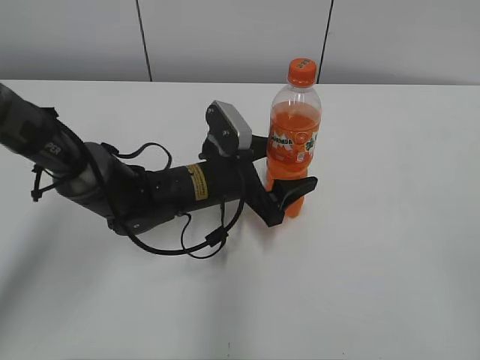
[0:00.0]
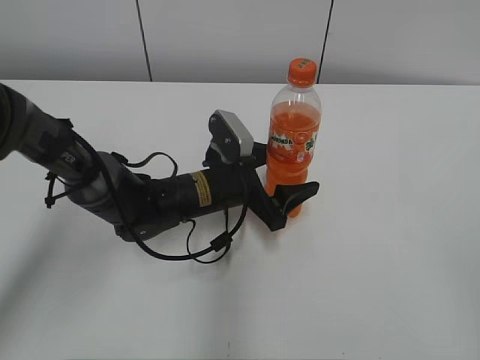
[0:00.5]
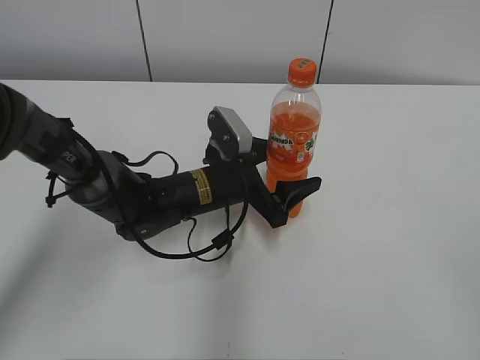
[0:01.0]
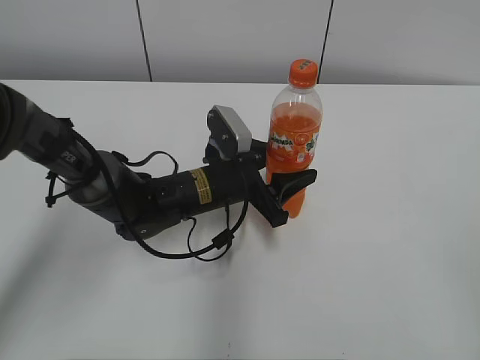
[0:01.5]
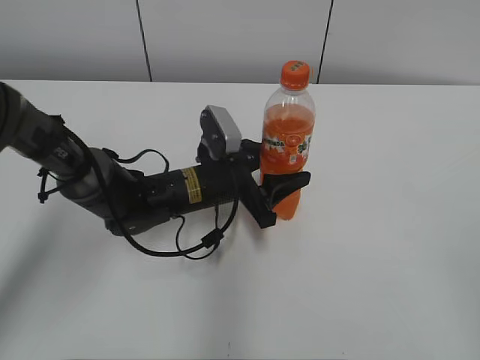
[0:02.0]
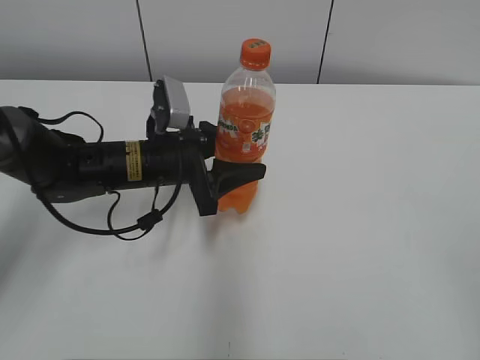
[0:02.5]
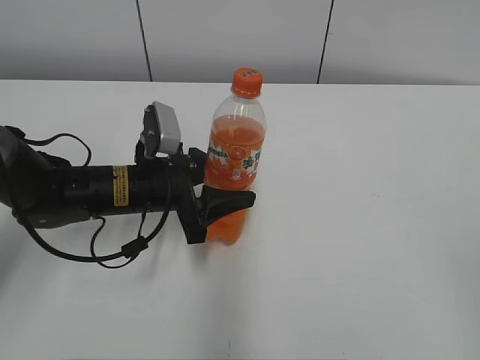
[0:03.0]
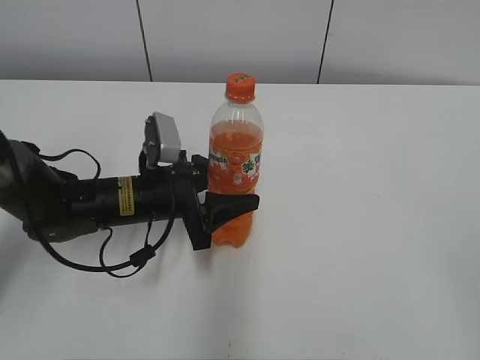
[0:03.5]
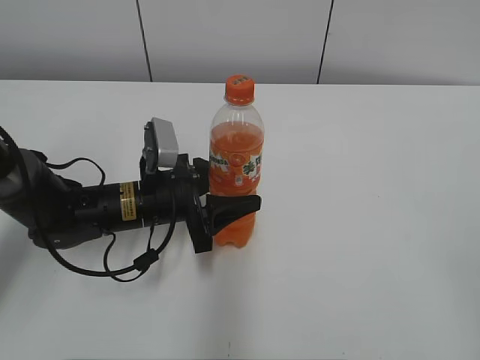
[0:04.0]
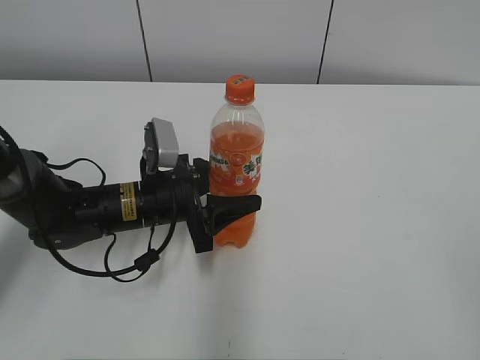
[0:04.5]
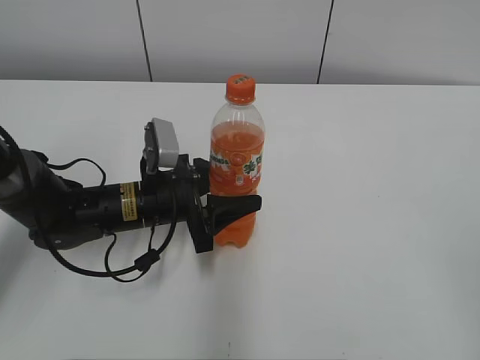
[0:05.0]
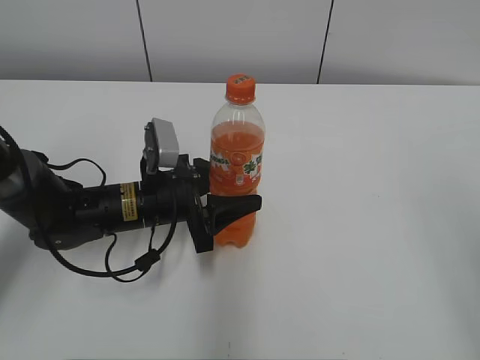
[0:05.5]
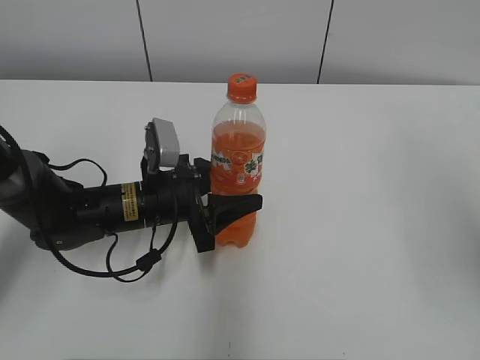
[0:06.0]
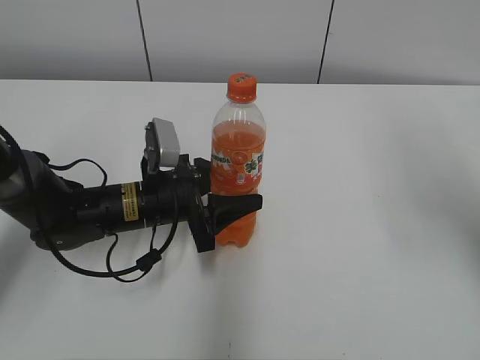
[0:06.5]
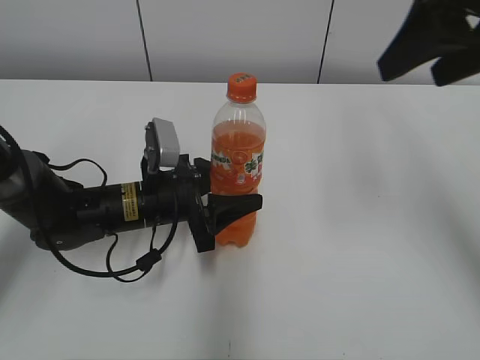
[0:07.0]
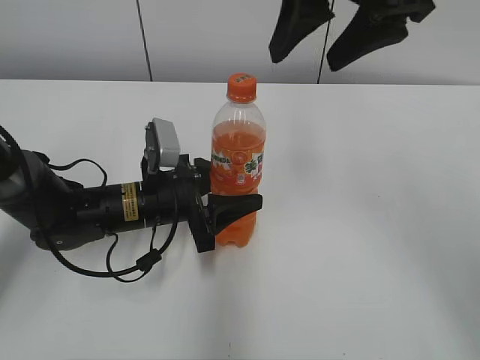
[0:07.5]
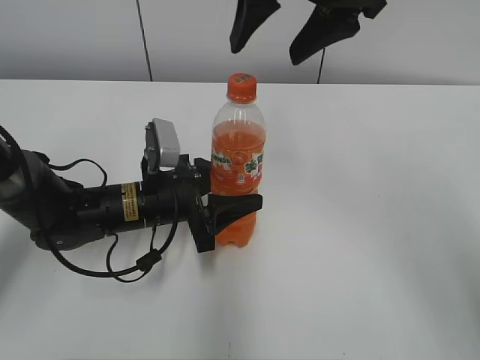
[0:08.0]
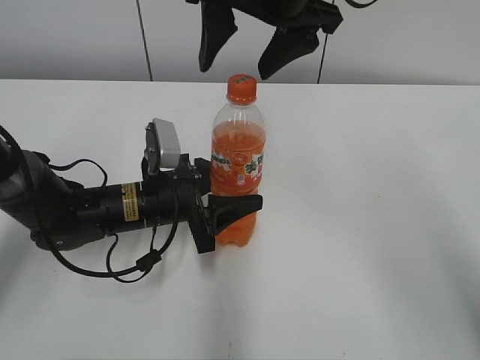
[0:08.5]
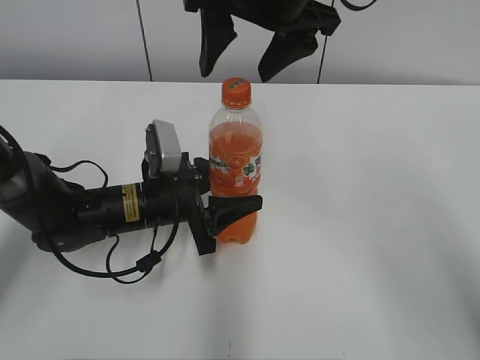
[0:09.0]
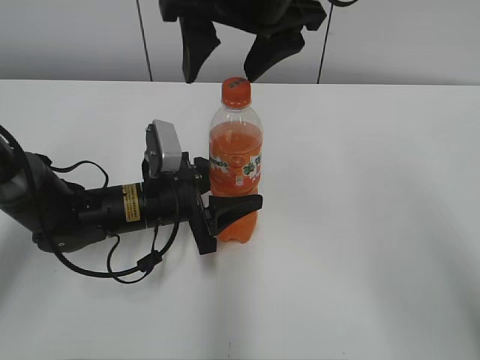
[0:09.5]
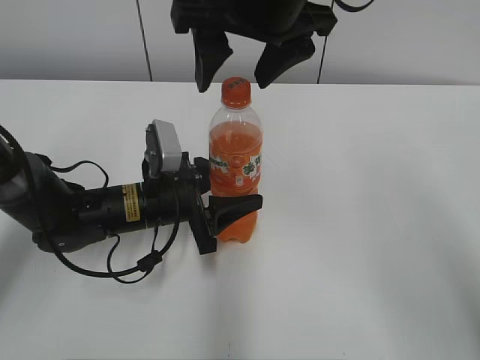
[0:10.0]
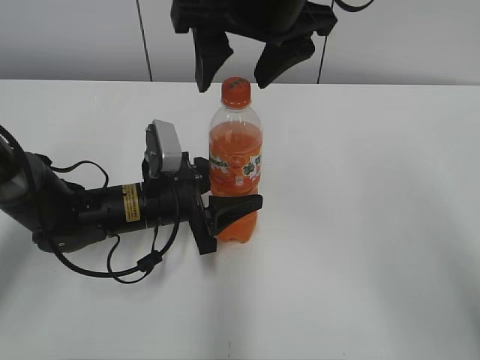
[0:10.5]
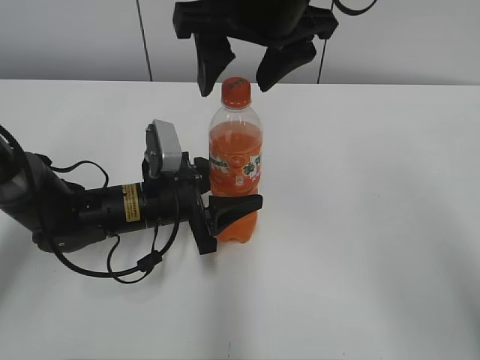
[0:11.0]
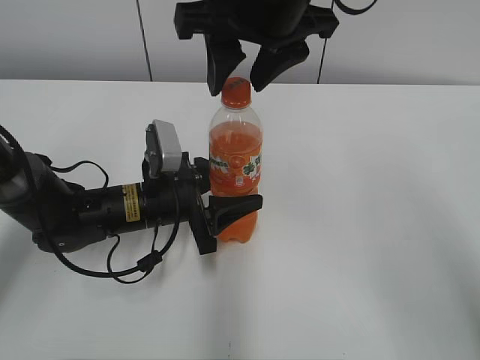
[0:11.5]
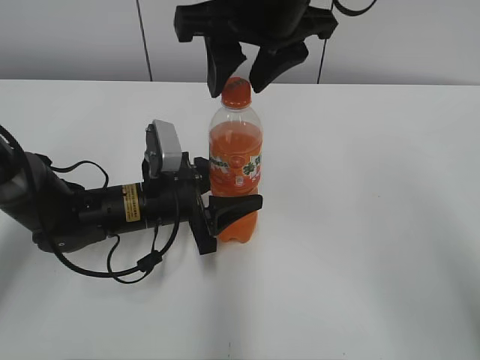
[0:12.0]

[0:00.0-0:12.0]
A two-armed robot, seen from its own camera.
Step, 0:01.5 to 0:04.5: Lift the Mirinda with the left hand.
0:00.0 to 0:02.0: The left gripper closes up.
0:02.0 to 0:04.0: The left gripper goes roughly 5 cm to the left.
0:04.0 to 0:06.0: The right gripper moves forward and upward, approximately 15 cm.
0:06.0 to 0:08.0: The right gripper goes about 25 cm to the left and forward.
0:08.0 to 0:10.0: The right gripper moves about 5 cm.
0:10.0 to 0:12.0: The right gripper closes.

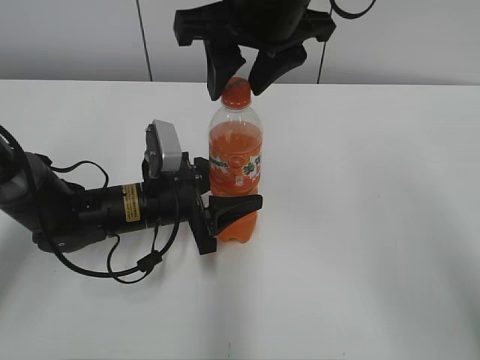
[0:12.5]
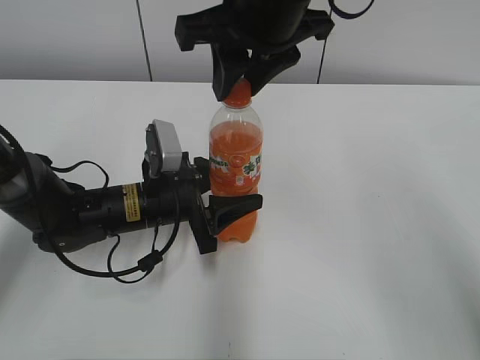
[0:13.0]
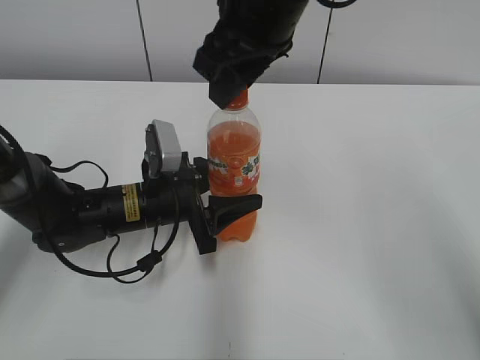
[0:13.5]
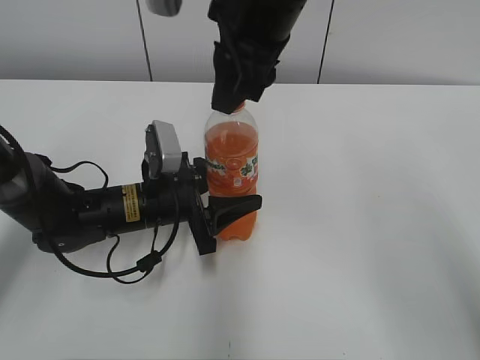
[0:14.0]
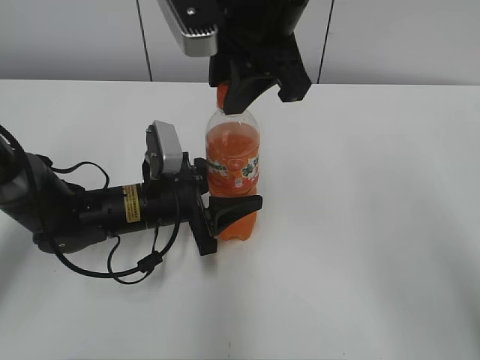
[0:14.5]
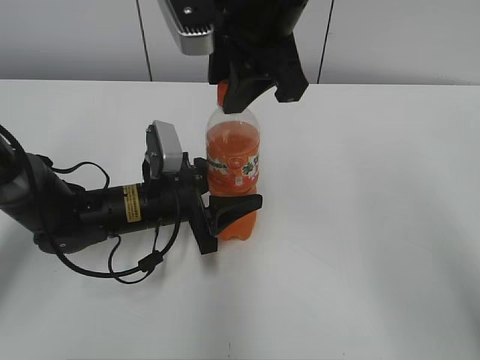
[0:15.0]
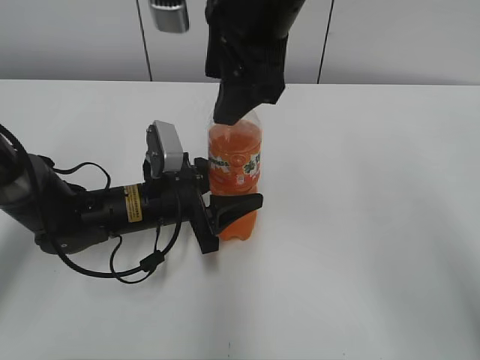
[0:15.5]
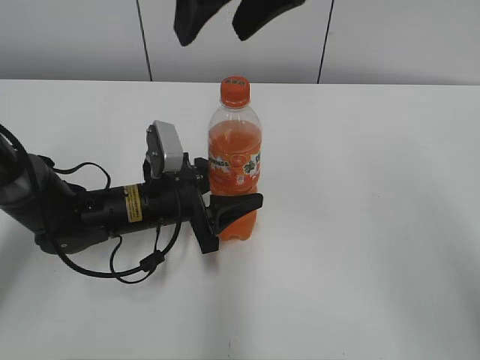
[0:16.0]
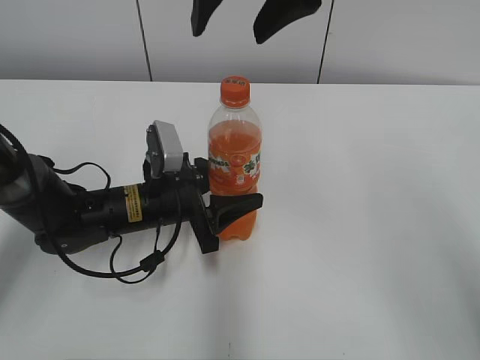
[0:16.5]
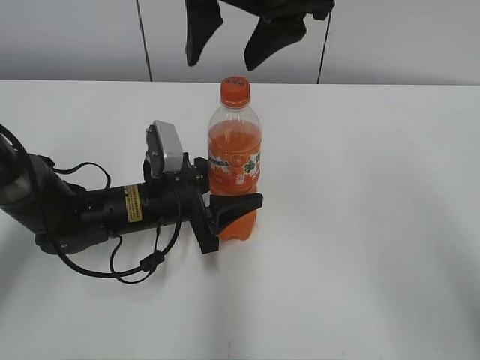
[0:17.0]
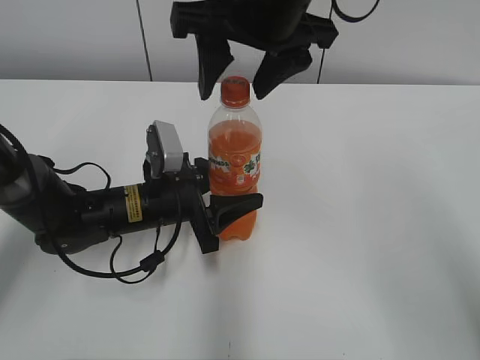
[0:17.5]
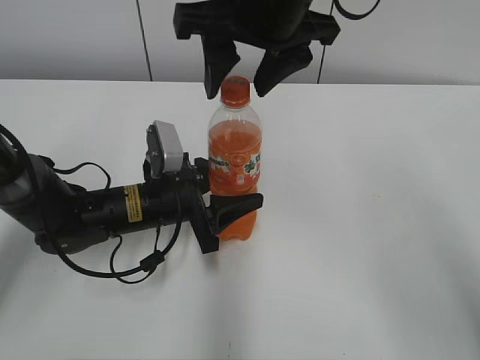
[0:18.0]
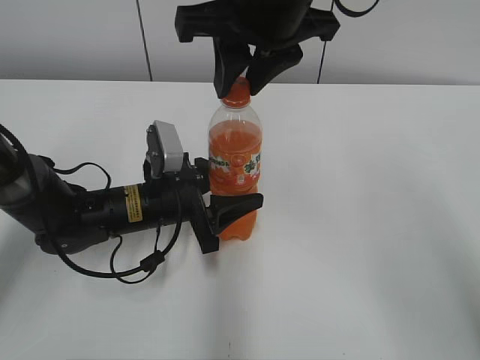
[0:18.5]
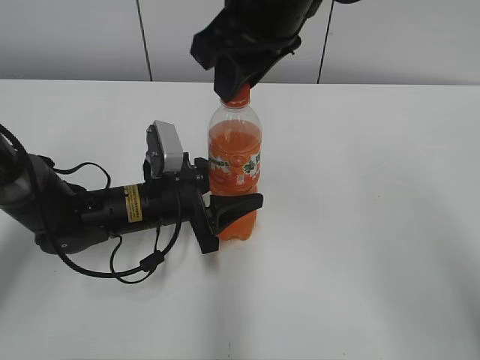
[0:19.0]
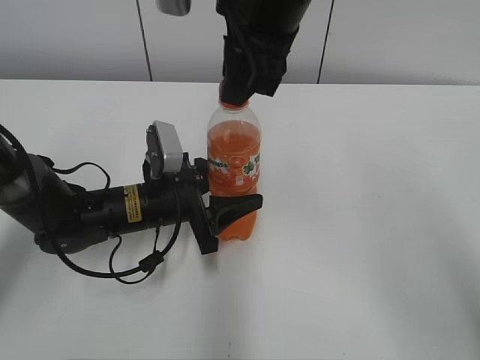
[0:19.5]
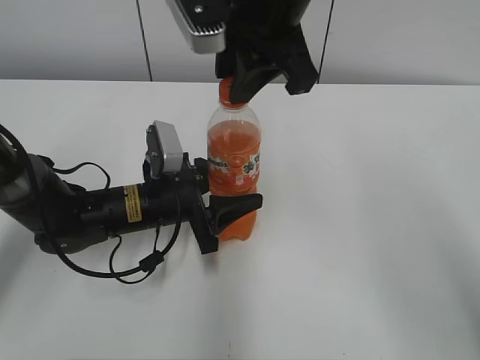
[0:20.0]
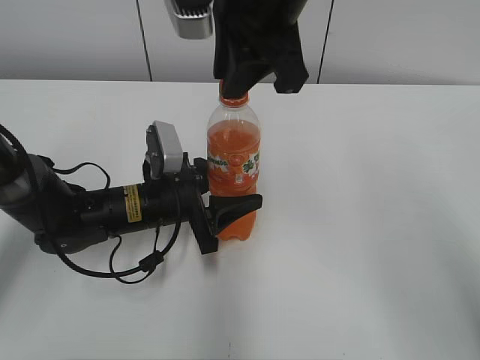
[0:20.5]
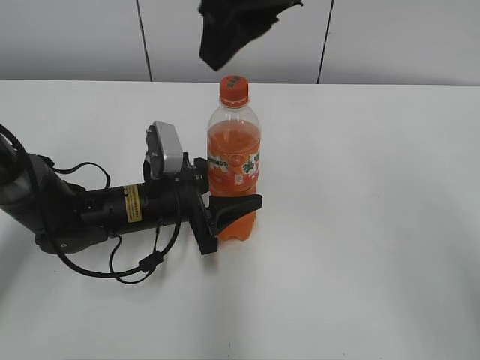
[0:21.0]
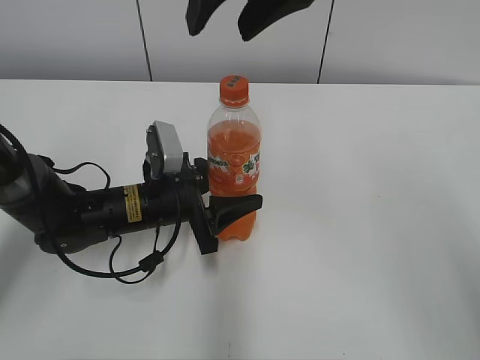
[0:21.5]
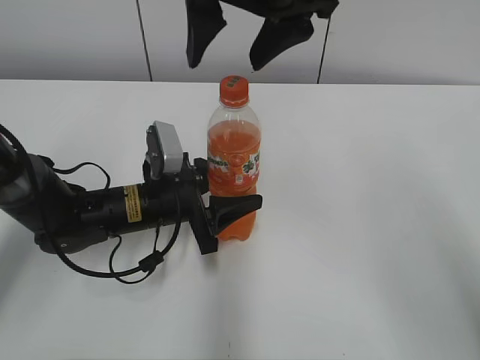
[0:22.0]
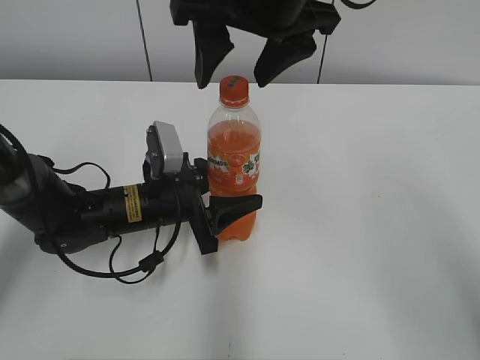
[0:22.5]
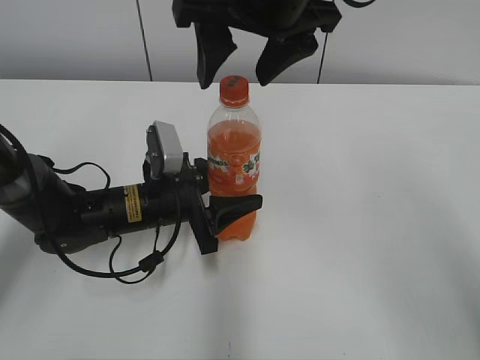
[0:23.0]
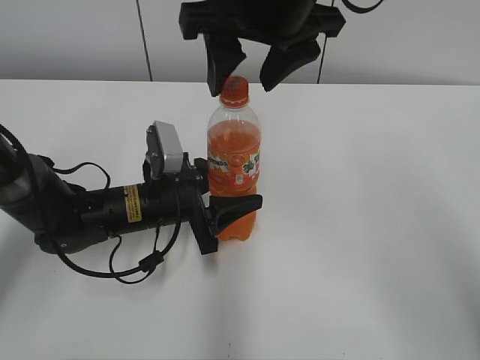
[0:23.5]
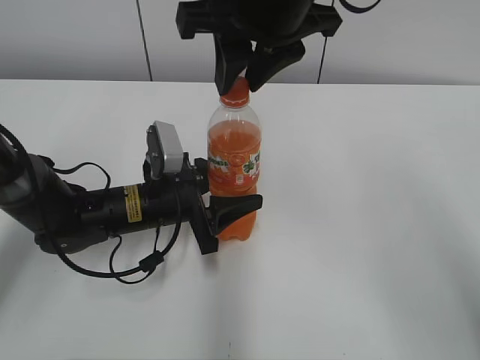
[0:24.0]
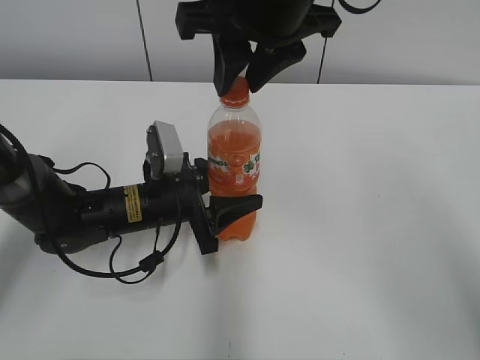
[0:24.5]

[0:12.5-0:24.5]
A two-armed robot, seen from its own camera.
0:12.5 to 0:14.5: The right gripper closes up.
0:14.5 to 0:16.5: The right gripper heads upward, covering about 5 cm, and opens its fingers.
0:16.5 to 0:18.5: The right gripper closes.
0:20.5 to 0:22.5: The right gripper opens up.
0:22.5 to 0:24.5: The right gripper closes.

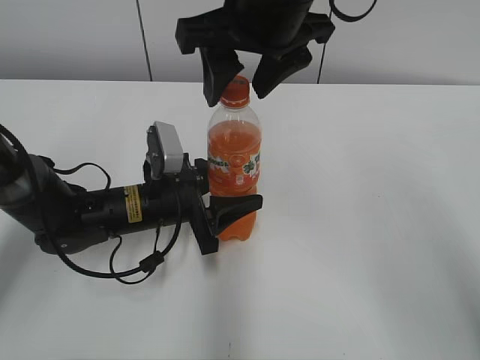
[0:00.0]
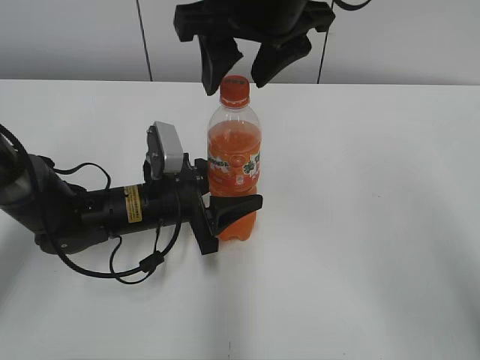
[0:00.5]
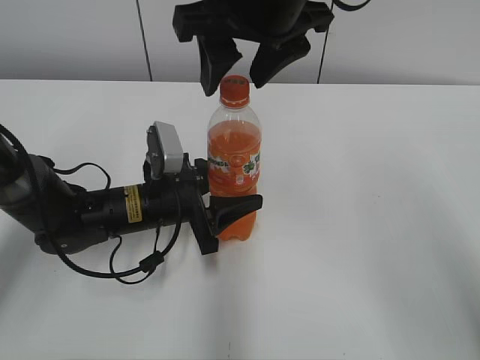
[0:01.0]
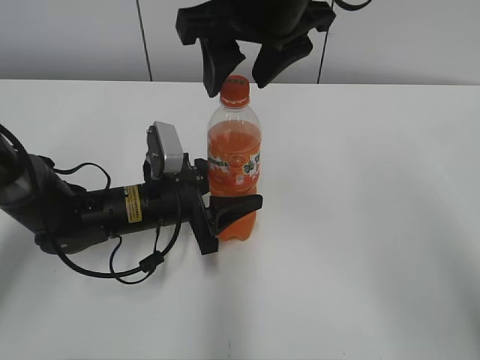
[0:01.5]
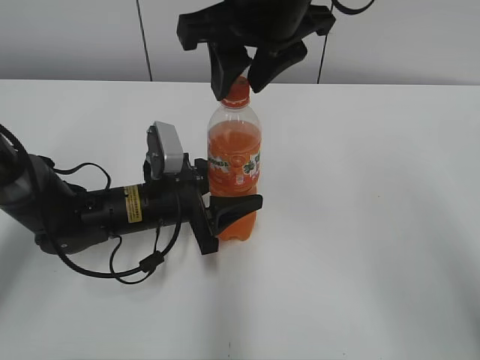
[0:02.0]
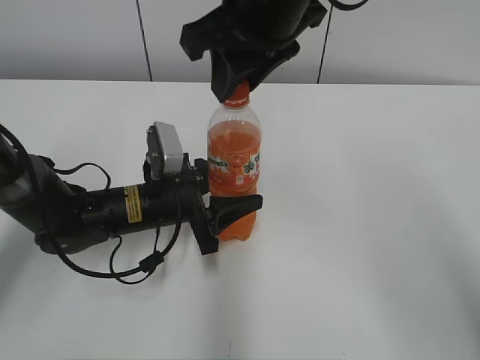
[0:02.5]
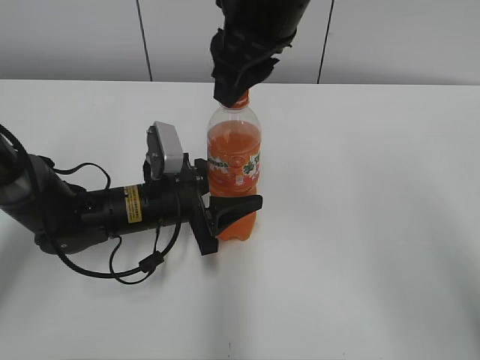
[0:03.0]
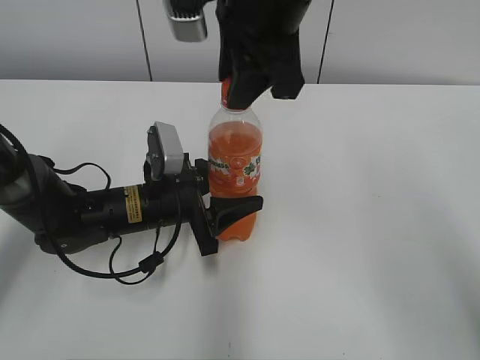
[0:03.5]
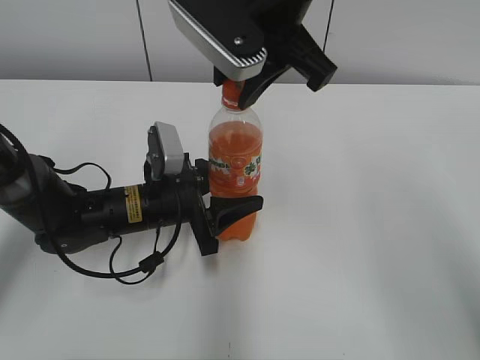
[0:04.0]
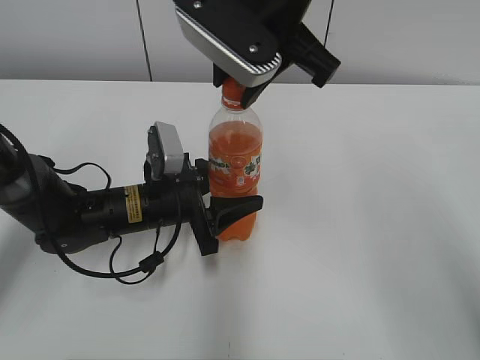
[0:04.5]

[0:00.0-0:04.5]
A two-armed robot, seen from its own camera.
0:00.0 to 0:02.0: The two grippers keep their place.
